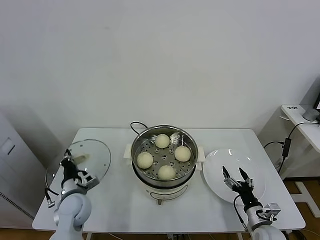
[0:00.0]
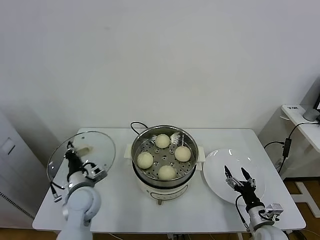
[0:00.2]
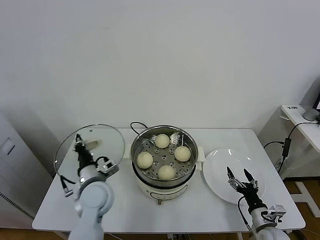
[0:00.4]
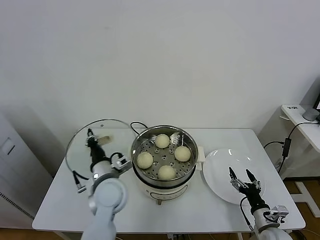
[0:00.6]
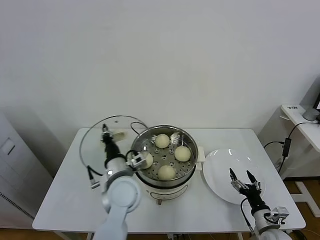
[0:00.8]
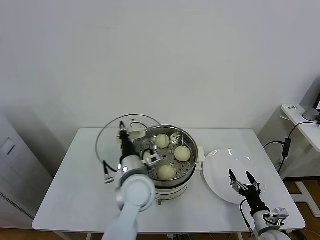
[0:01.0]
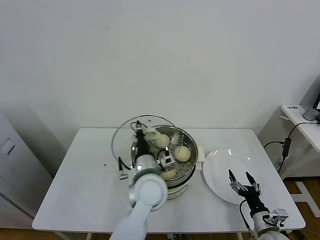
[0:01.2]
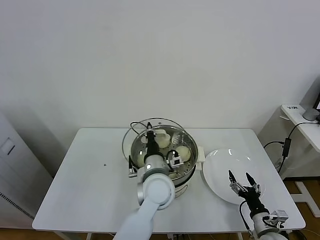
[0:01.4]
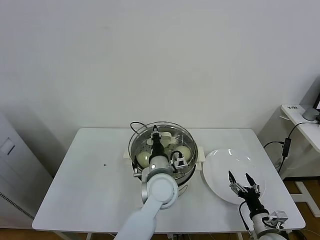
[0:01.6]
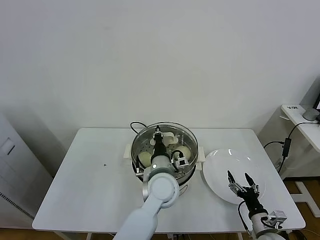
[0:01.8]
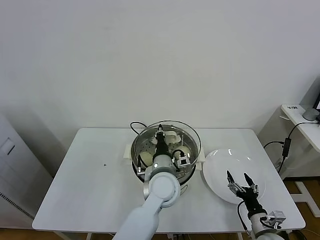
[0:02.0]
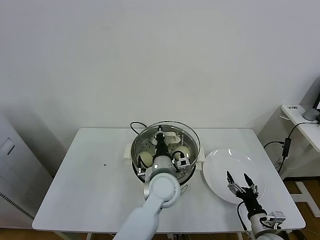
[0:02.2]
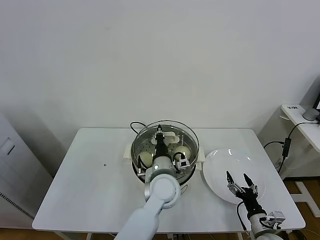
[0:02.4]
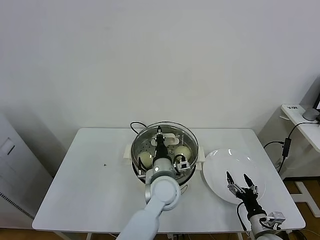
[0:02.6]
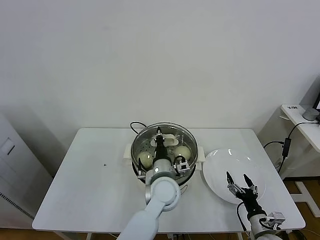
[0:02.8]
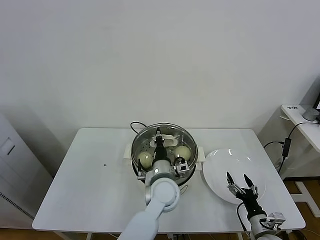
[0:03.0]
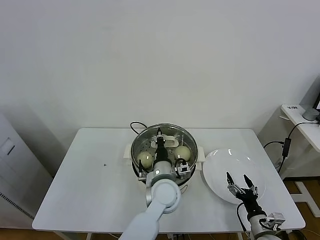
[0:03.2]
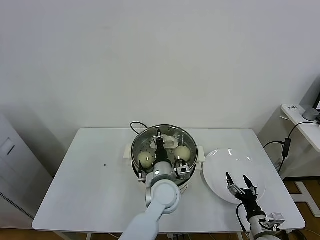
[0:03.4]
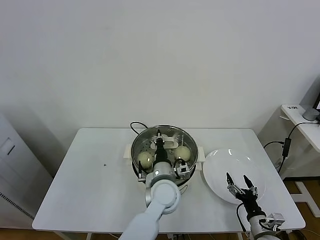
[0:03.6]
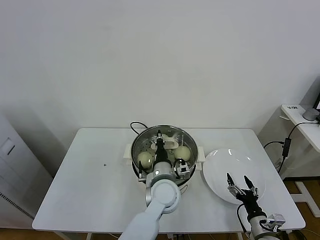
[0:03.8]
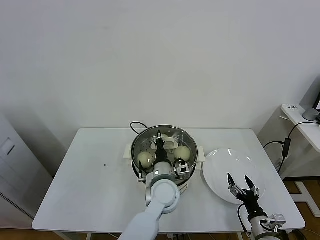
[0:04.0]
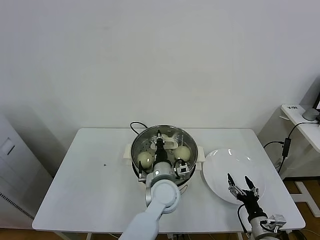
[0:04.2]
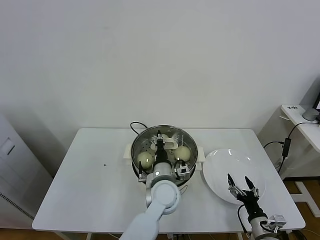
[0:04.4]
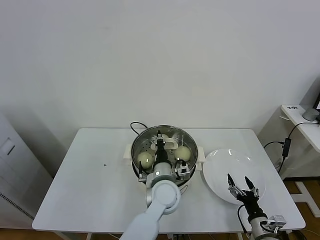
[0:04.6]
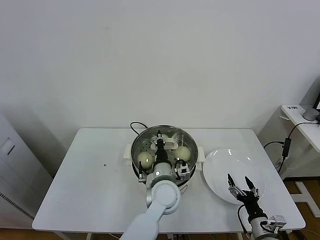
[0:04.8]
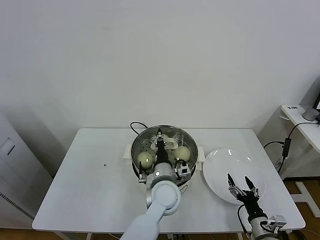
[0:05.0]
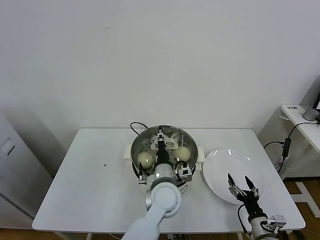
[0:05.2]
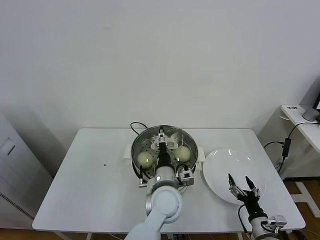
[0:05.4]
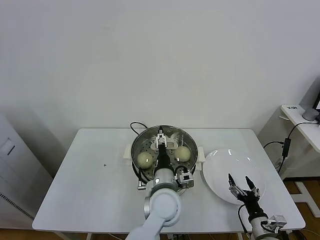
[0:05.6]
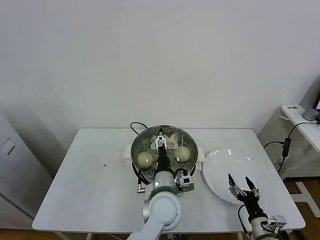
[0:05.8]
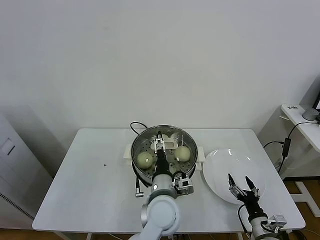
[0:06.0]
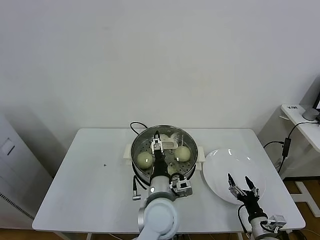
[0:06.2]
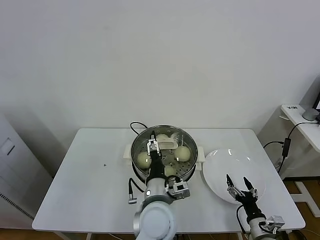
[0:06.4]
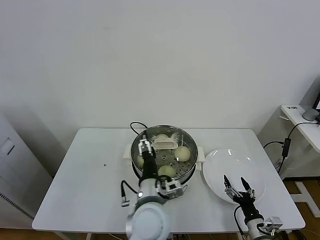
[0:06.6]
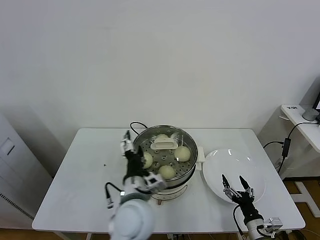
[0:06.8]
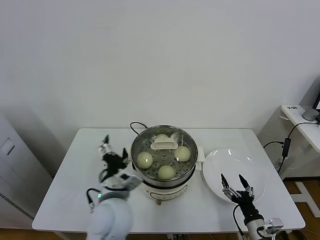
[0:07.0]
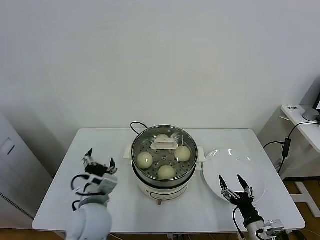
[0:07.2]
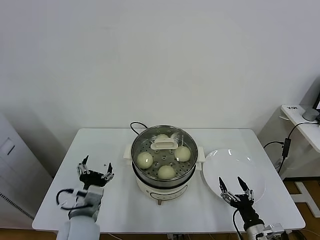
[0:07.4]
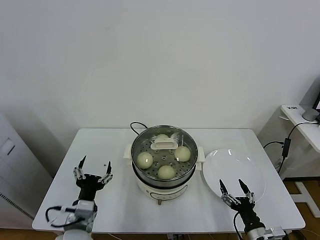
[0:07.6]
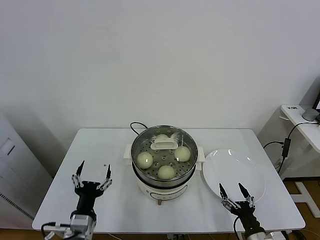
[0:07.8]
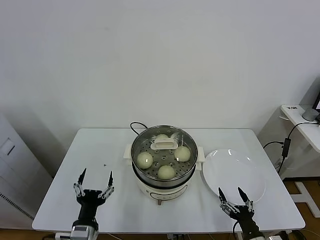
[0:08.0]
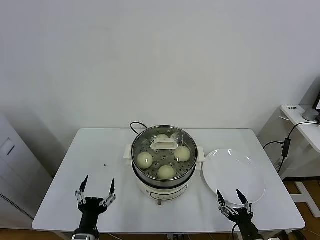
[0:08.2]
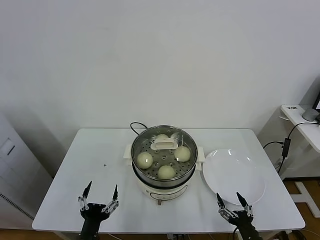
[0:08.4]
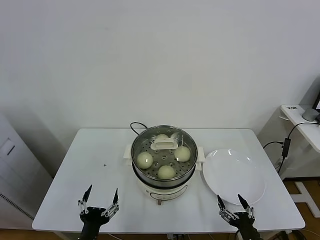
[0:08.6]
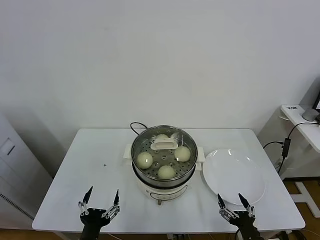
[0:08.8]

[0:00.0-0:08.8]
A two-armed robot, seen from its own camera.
Task of the whole recording: take steamed baozi put them in steamer.
Step, 0:00.0 to 0:05.2: Place the pot lid on the steamer with left gripper.
0:00.0 to 0:01.4: The left gripper travels to the right and upward by approximately 30 cm.
0:01.4 to 0:03.0: The left gripper ends up roughly 5 cm from where it was.
0:03.0 to 0:04.4: Both grippers stay put.
0:04.4 to 0:05.8: The left gripper changes place by some 5 cm, and opens up.
0:05.8 to 0:07.4: The left gripper is displaced to the left by roughly 20 cm. Meanwhile the right gripper moves some 5 cm.
0:07.4 to 0:08.8: The left gripper moves backward and downward, roughly 15 cm. Meanwhile the right gripper travels backward by about 5 cm.
